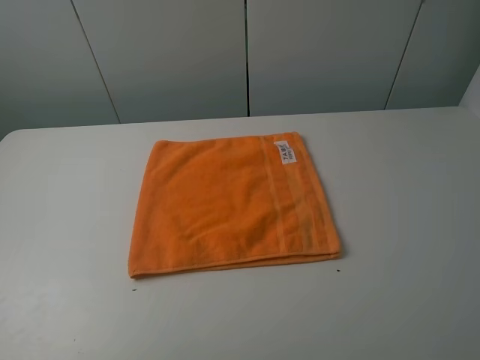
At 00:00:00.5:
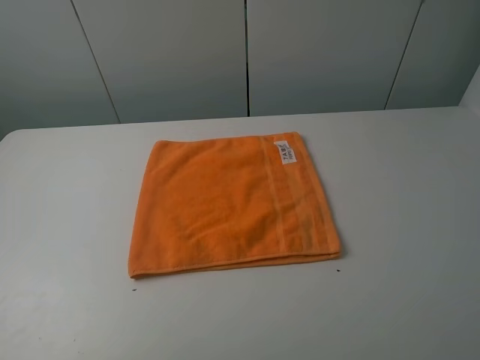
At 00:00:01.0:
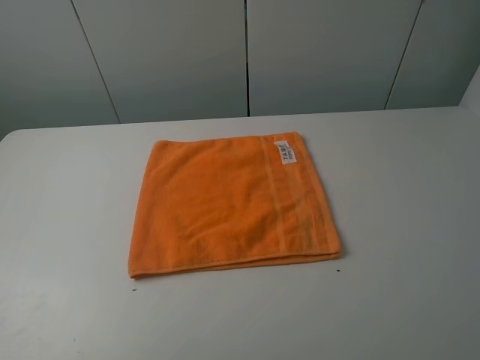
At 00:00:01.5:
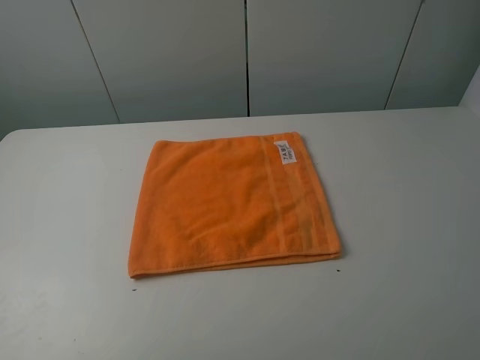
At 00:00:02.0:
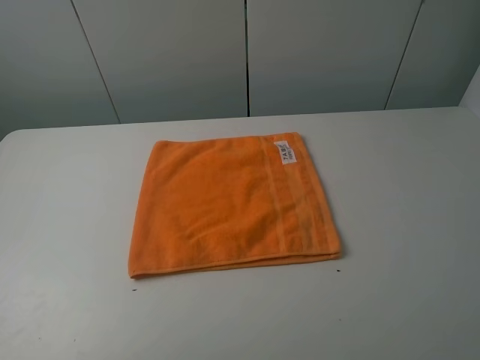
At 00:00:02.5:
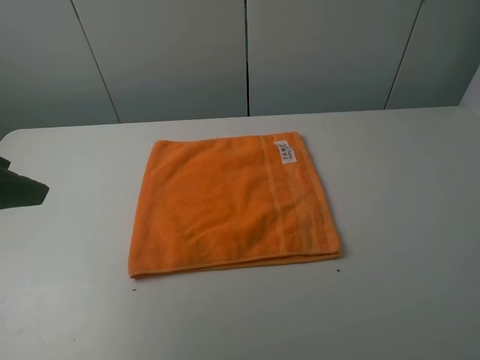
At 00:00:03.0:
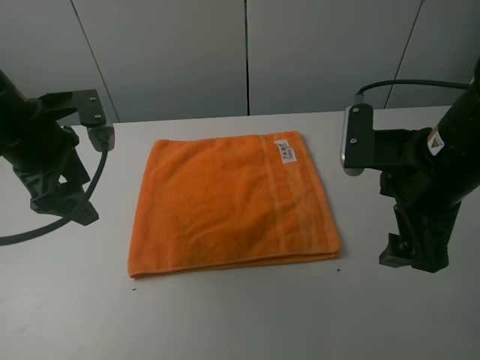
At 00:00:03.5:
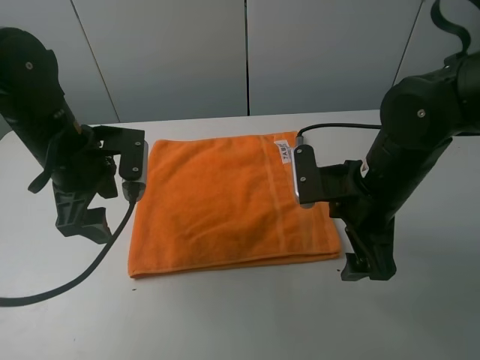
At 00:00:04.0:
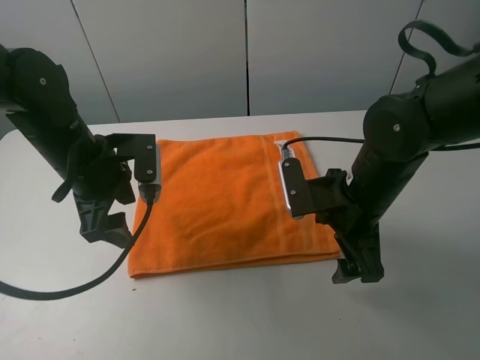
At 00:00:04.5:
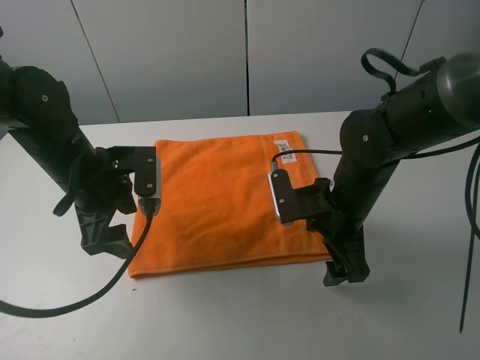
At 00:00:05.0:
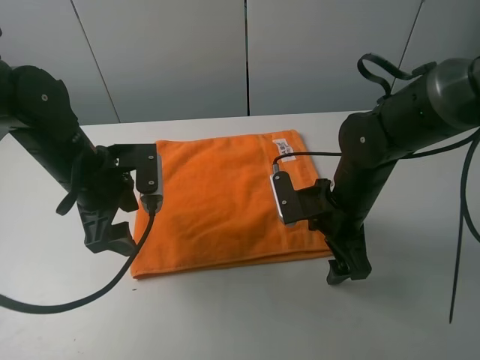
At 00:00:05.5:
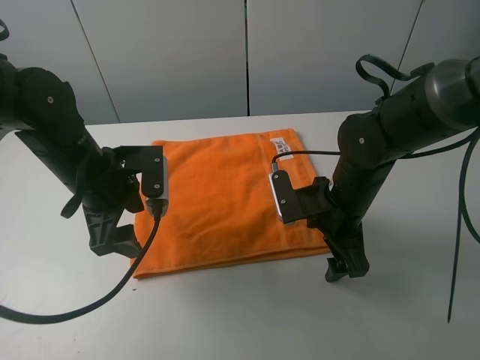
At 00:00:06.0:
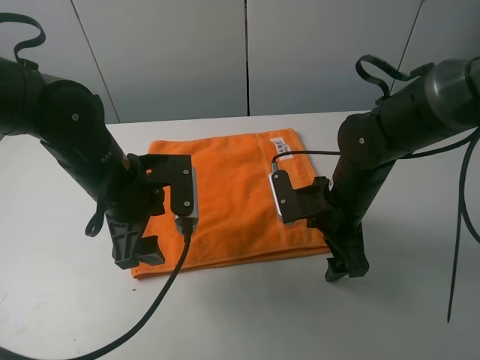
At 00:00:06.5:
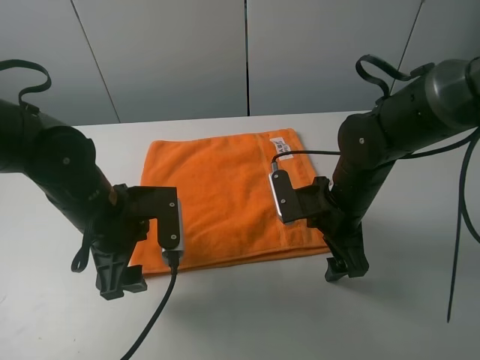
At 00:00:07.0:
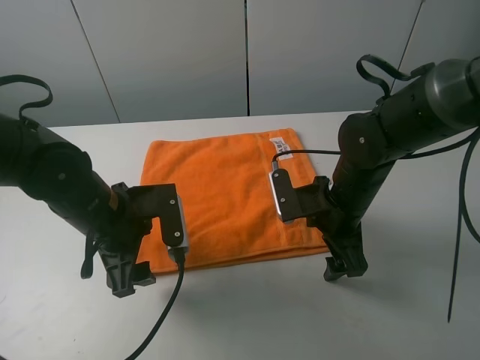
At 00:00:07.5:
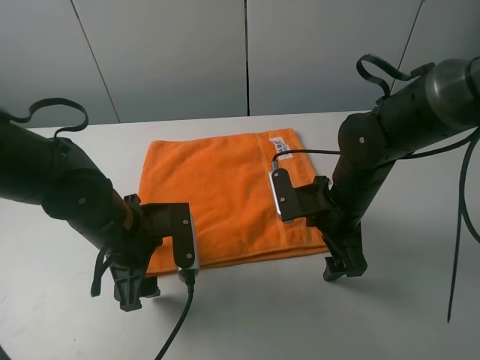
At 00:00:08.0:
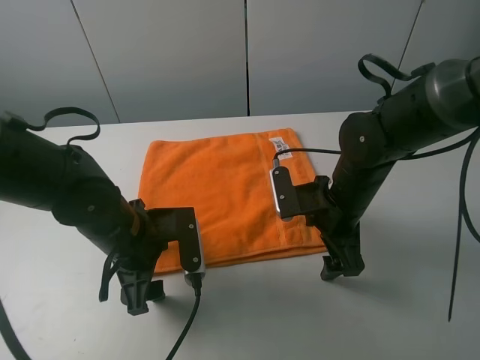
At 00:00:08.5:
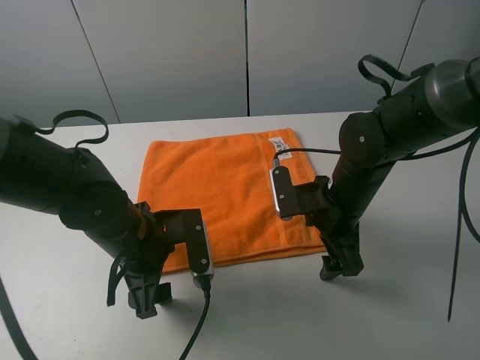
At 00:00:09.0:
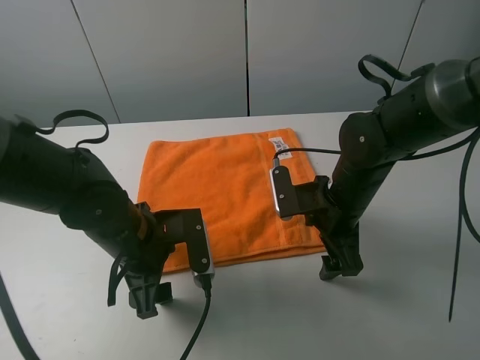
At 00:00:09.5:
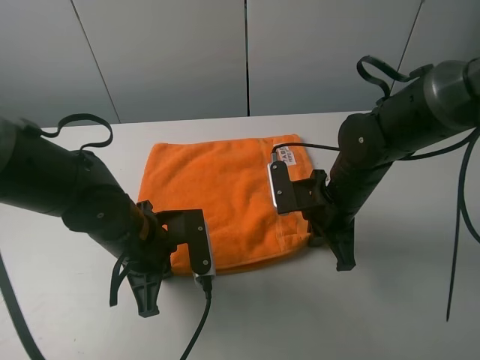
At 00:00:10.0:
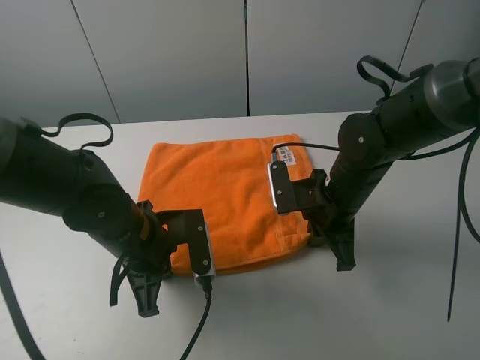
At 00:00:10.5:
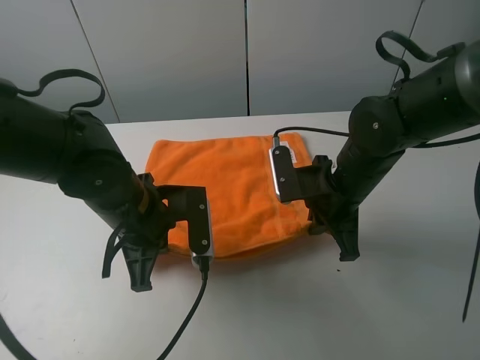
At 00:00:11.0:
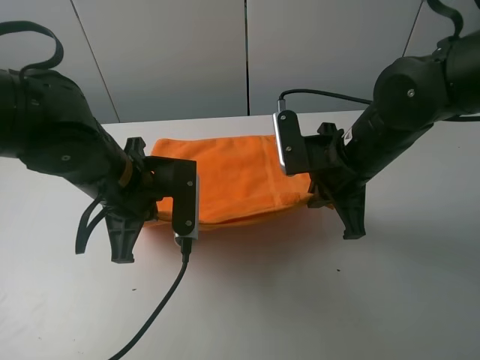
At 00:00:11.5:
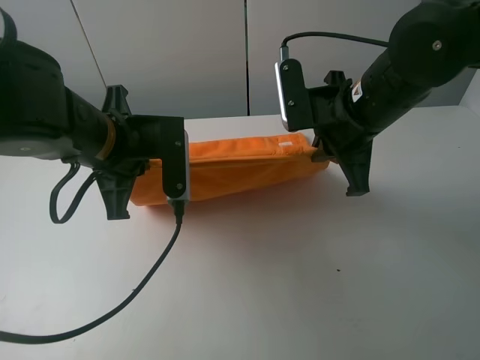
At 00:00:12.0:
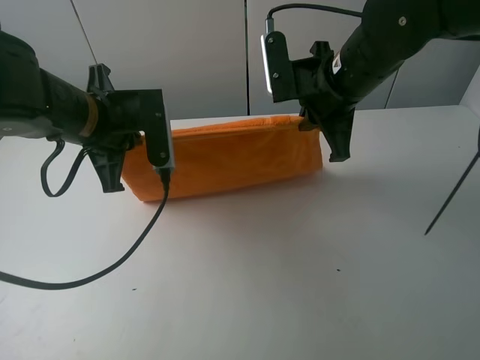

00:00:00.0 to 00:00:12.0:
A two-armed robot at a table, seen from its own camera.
Task of the whole recording: fold the towels on the table.
Step, 00:00:00.0 to 00:00:09.0: Grasp the orange towel with the right gripper.
00:00:02.0 to 00:00:04.0: The right gripper moves forward, downward and to the left, approximately 30 cm. Meanwhile the left gripper goes some 30 cm forward, downward and to the right.
00:00:04.0 to 00:00:06.0: The left gripper ends up roughly 5 cm from where it was.
00:00:06.0 to 00:00:08.0: The left gripper goes approximately 5 cm downward.
00:00:08.0 to 00:00:10.0: The right gripper closes up; the left gripper closes its fingers.
00:00:10.0 to 00:00:12.0: The two grippers go about 15 cm upward and forward.

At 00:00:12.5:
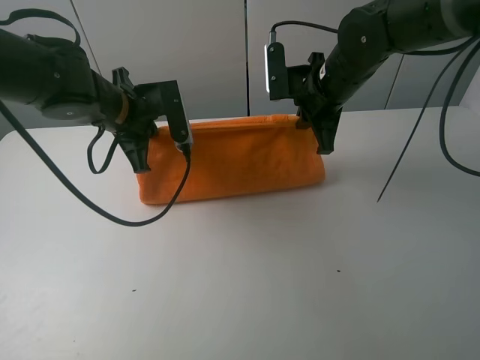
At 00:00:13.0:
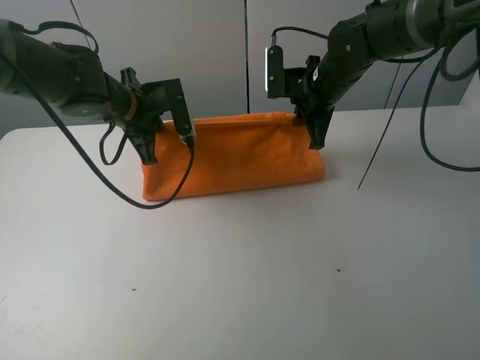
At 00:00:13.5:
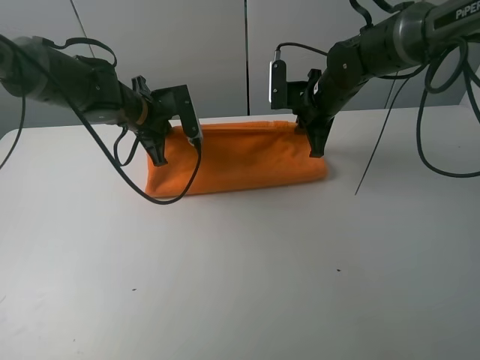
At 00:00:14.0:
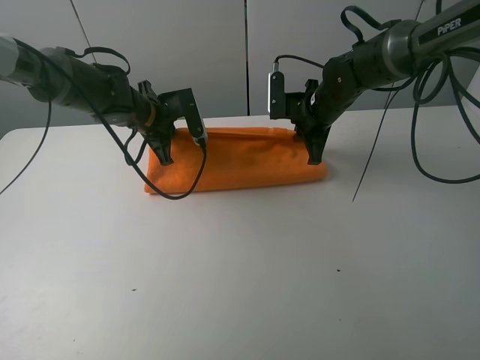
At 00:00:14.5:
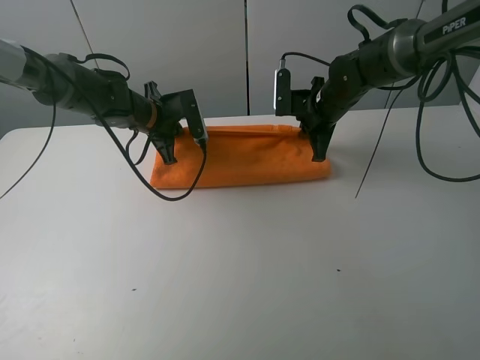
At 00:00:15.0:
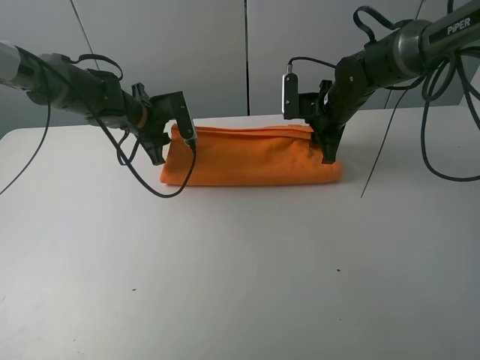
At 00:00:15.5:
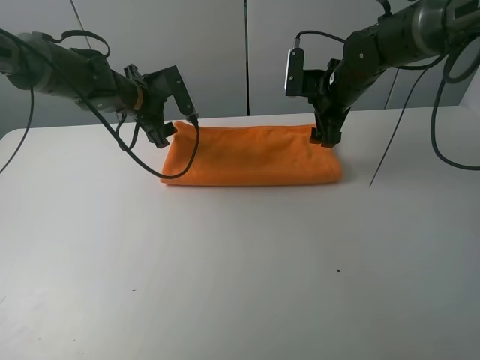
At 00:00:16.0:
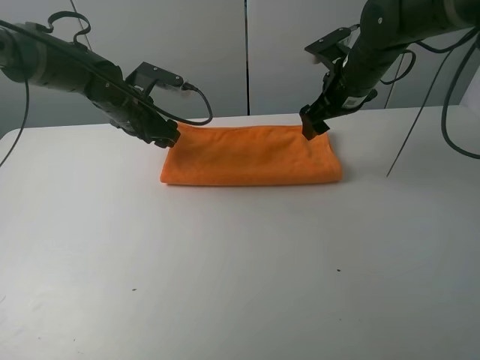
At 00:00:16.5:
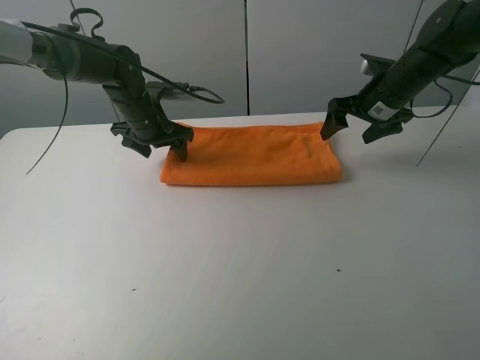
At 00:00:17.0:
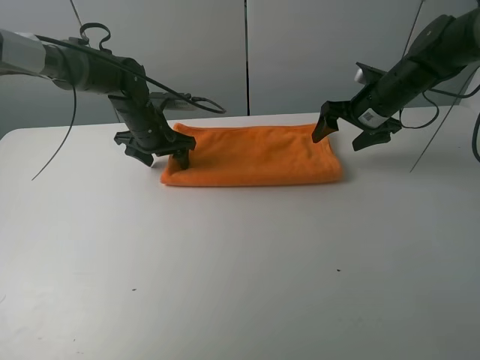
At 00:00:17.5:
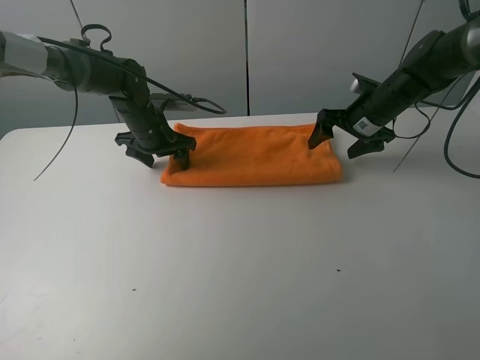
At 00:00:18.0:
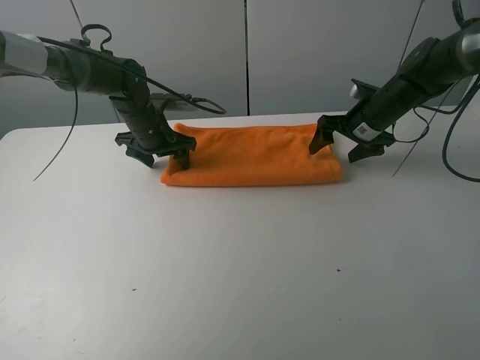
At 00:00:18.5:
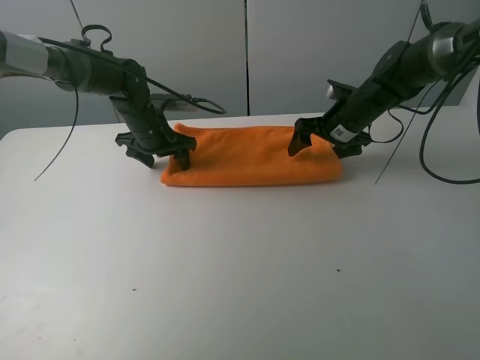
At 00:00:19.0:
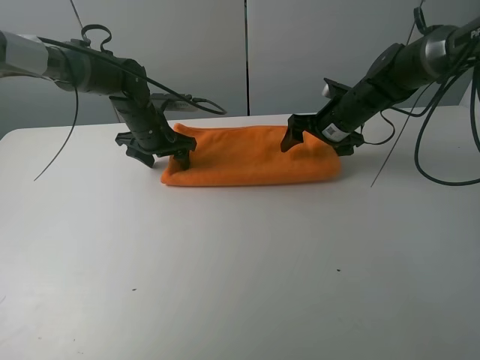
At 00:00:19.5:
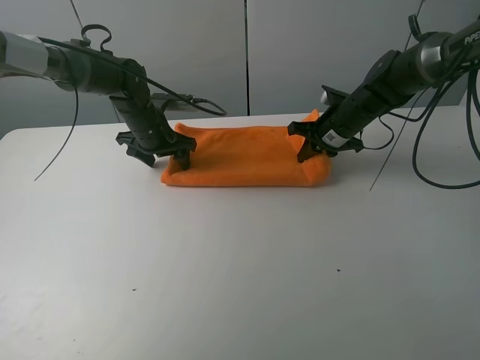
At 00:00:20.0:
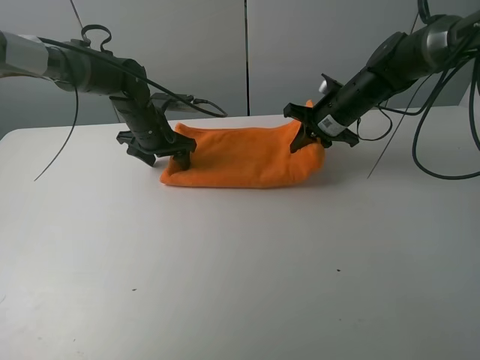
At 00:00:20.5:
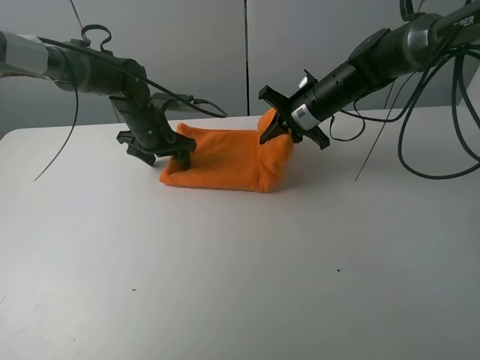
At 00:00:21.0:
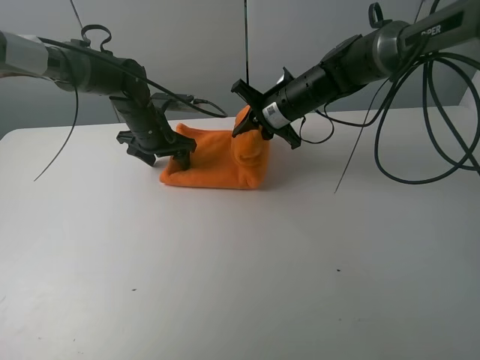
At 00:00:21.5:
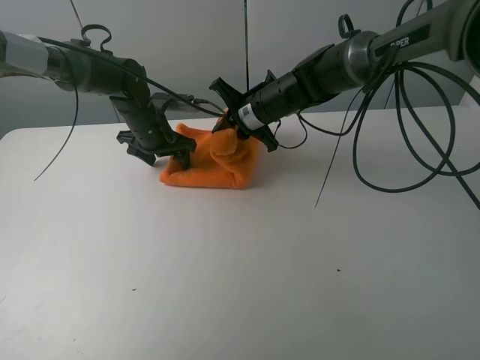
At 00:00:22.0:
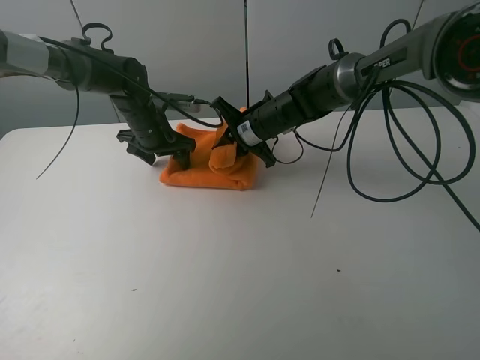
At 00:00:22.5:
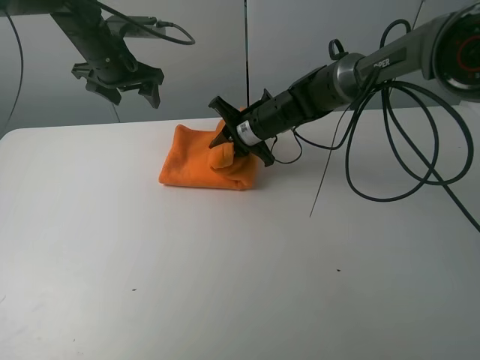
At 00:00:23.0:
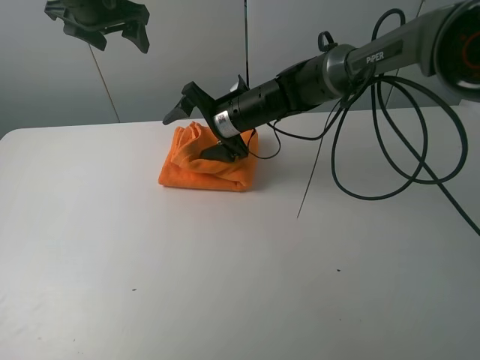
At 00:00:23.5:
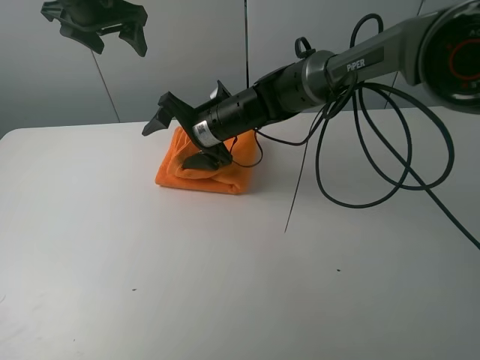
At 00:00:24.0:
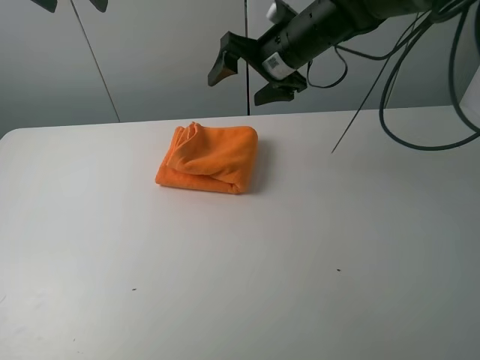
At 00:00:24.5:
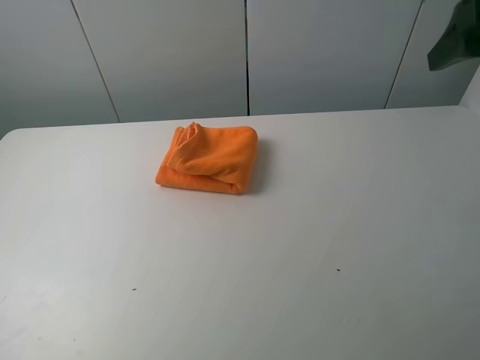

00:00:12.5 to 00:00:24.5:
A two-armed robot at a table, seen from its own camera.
Task of the whole recording: fold the towels on the table.
Step, 00:00:12.5 to 00:00:15.0: Fold the orange towel upwards with the right gripper.
Step, 00:00:15.5 to 00:00:16.5: Press on the orange towel with the left gripper.
Step, 00:00:17.0 to 00:00:22.5: Fold the orange towel from right to left with right gripper.
Step, 00:00:23.0 to 00:00:23.5: Arrange the orange towel with the right hand.
00:00:12.5 to 00:00:14.5: The left gripper heads forward and downward, covering some 10 cm. Meanwhile the right gripper is displaced downward and forward by roughly 10 cm.
00:00:14.5 to 00:00:16.5: The right gripper shifts roughly 10 cm to the right, and opens its fingers; the left gripper opens its fingers.
00:00:16.5 to 00:00:18.5: The right gripper moves to the left, about 5 cm.
00:00:18.5 to 00:00:20.5: The right gripper moves to the left, about 5 cm, and closes.
00:00:20.5 to 00:00:22.5: The left gripper moves upward, approximately 15 cm, while the right gripper travels to the left by some 10 cm.
00:00:22.5 to 00:00:24.5: The right gripper moves upward, to the right and backward, about 40 cm, and opens up. Meanwhile the left gripper heads backward, upward and to the left, covering roughly 30 cm.

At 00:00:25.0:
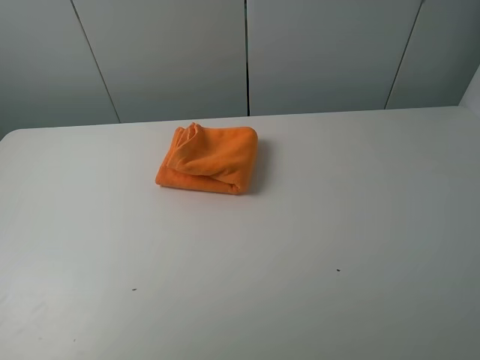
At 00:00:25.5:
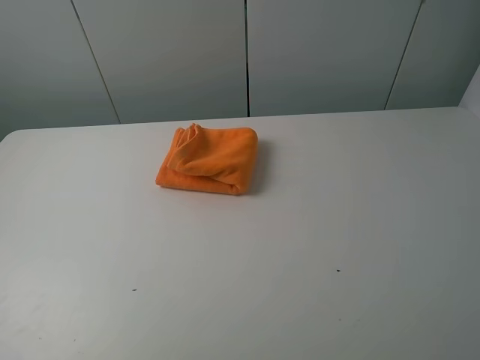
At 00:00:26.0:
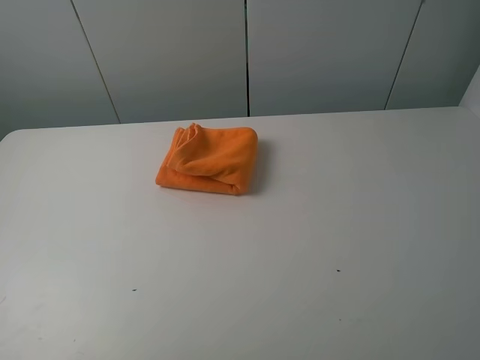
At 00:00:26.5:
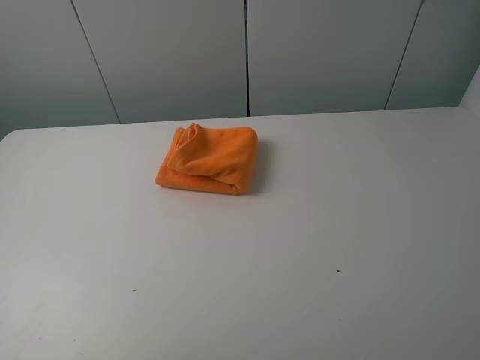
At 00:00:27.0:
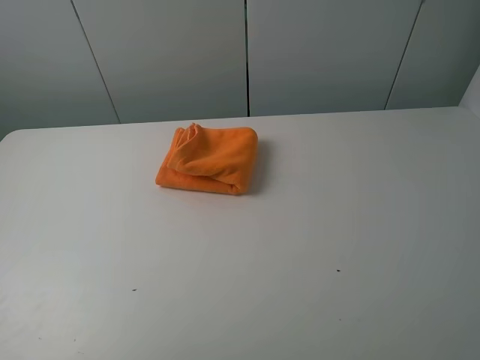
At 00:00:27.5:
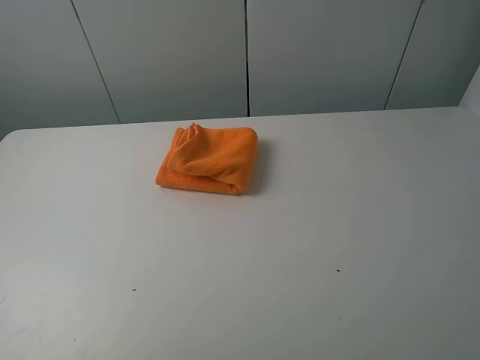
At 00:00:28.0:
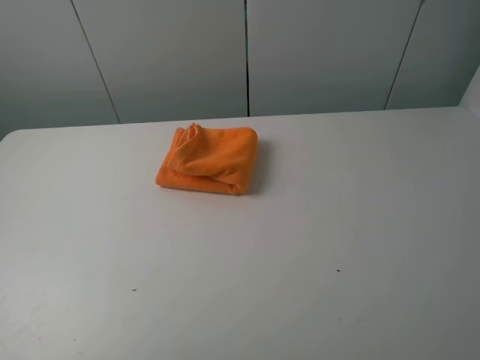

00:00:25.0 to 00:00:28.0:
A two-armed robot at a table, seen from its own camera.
Task of the whole recording: fold the towels on the table.
00:00:26.5 to 00:00:28.0: Both grippers stay put.
